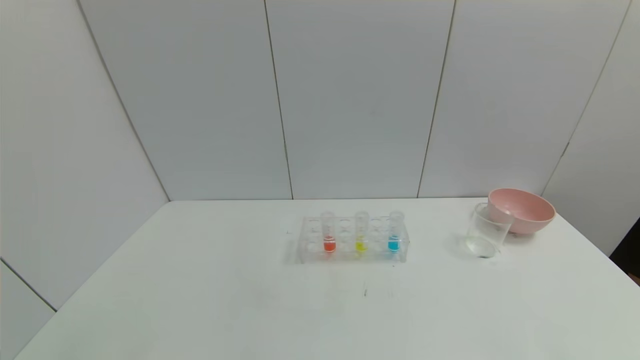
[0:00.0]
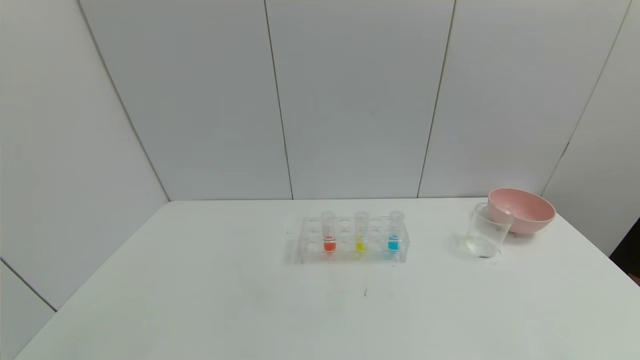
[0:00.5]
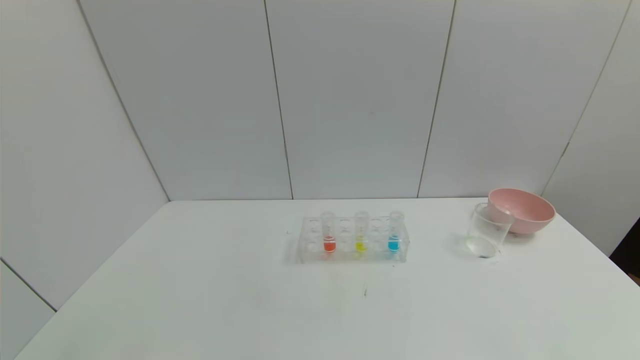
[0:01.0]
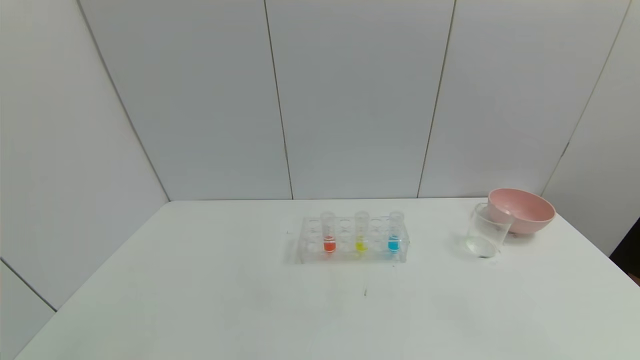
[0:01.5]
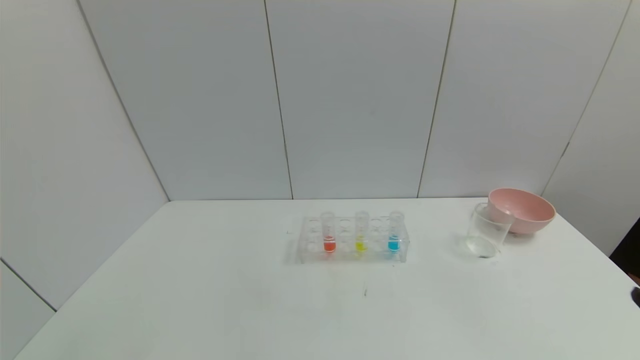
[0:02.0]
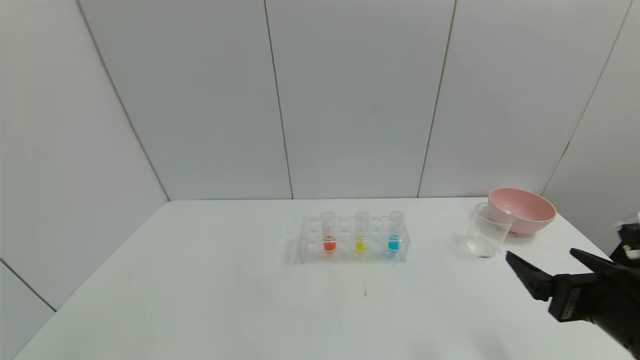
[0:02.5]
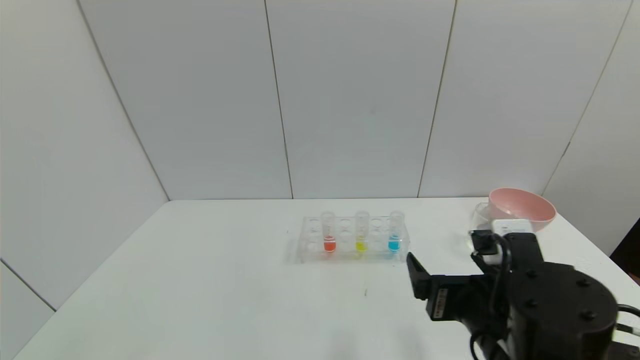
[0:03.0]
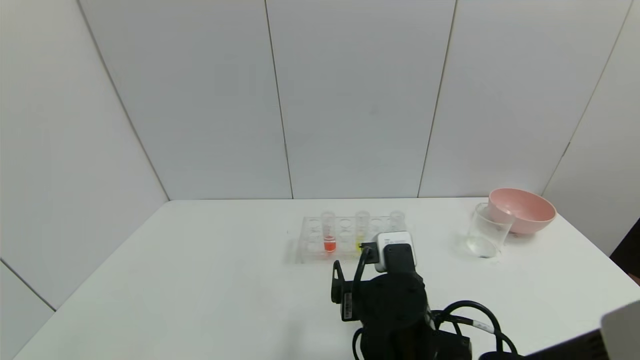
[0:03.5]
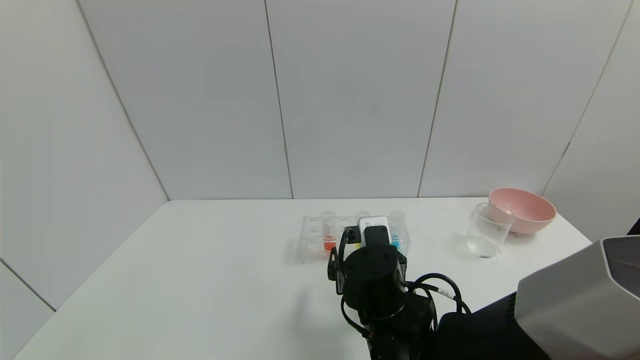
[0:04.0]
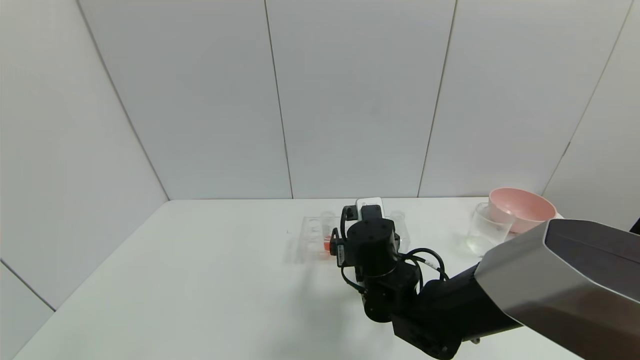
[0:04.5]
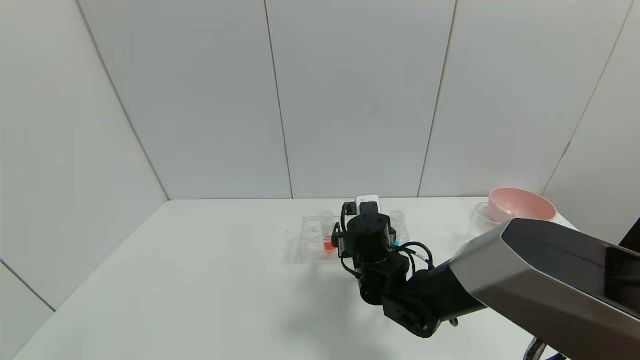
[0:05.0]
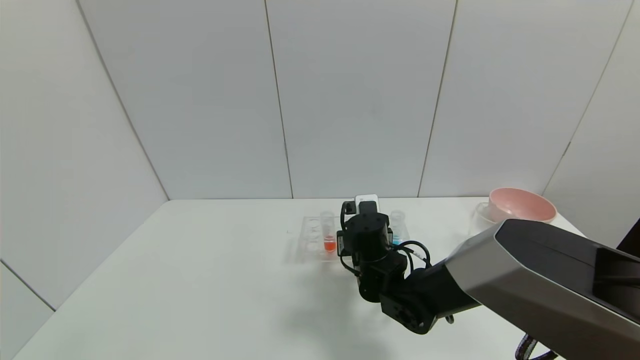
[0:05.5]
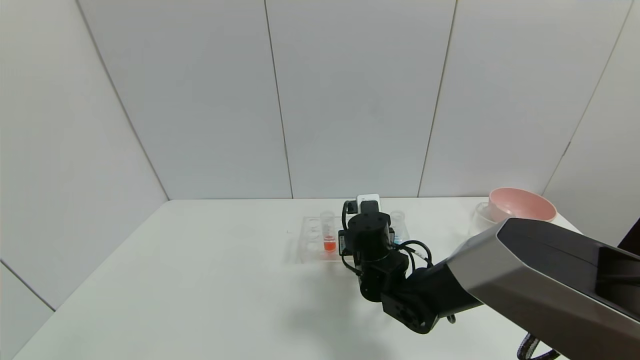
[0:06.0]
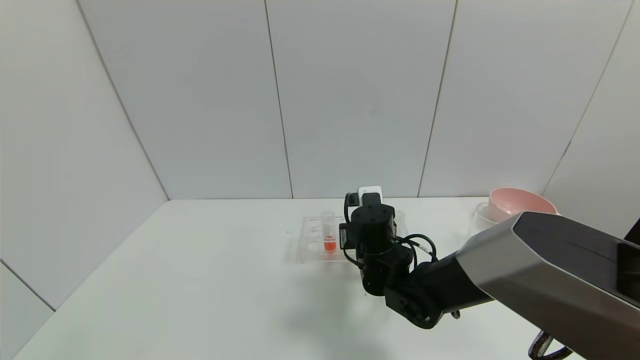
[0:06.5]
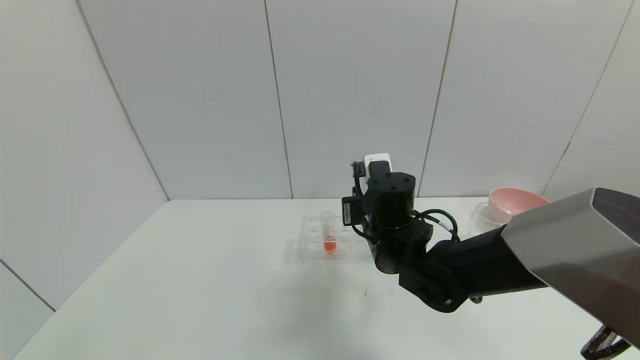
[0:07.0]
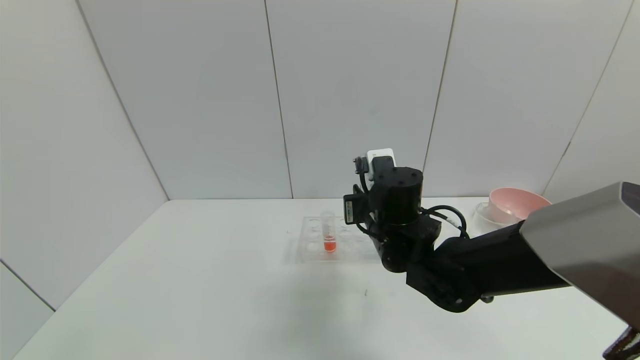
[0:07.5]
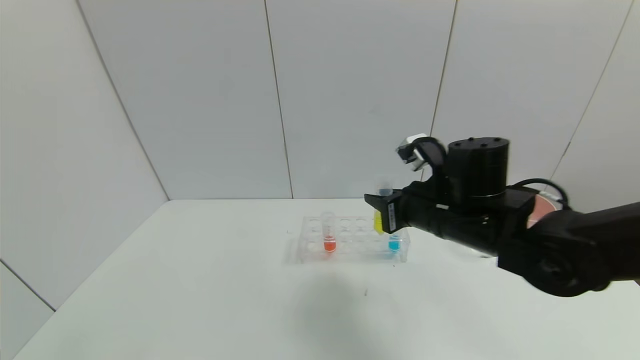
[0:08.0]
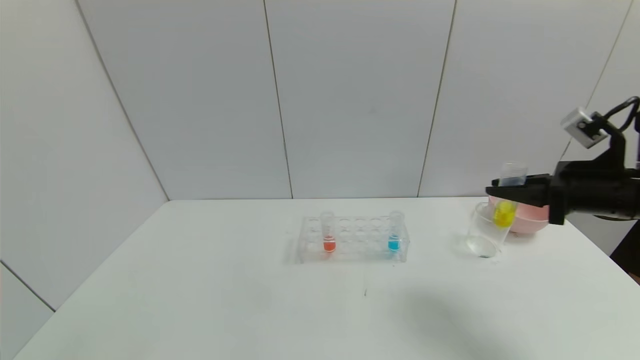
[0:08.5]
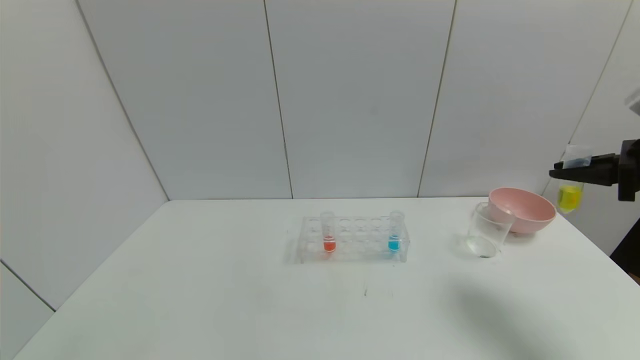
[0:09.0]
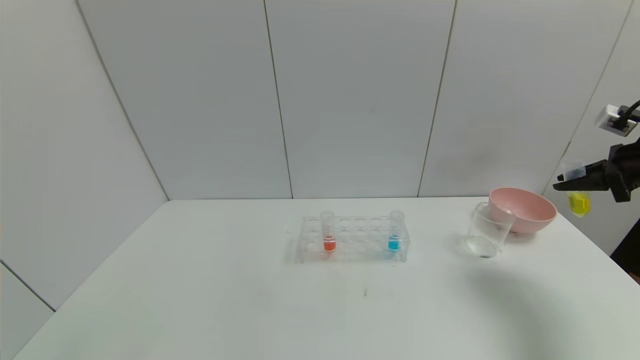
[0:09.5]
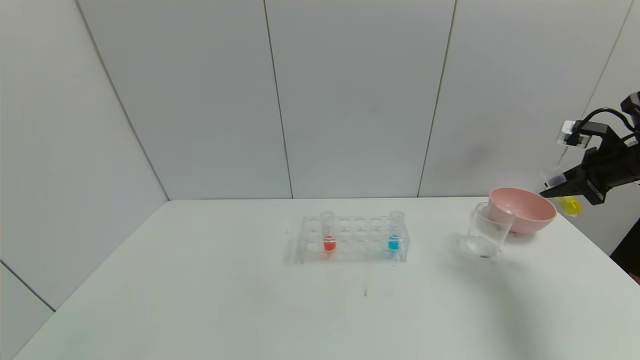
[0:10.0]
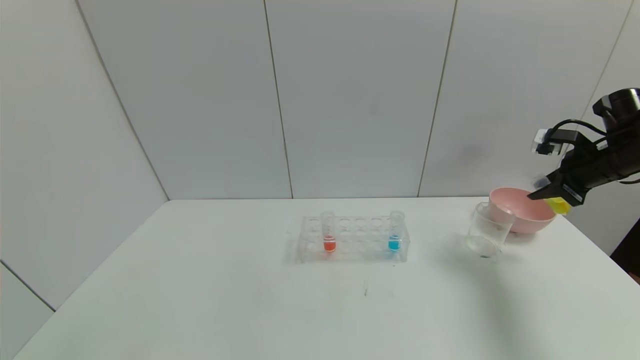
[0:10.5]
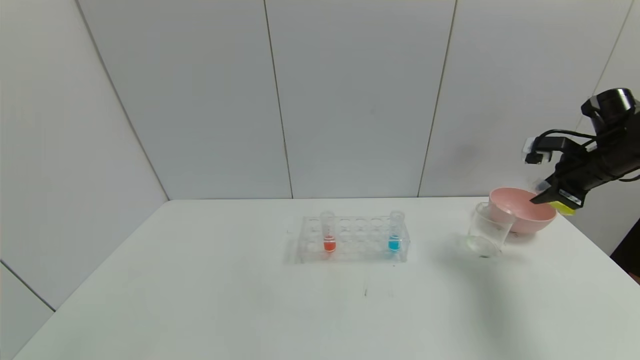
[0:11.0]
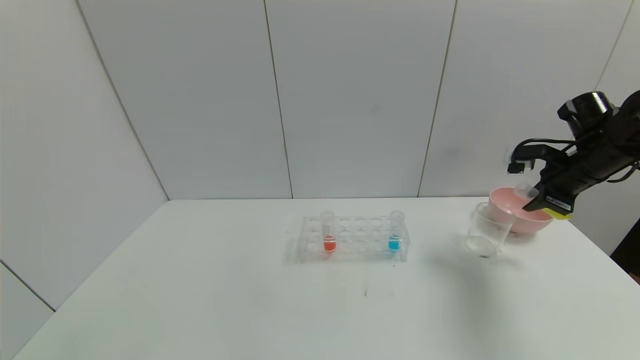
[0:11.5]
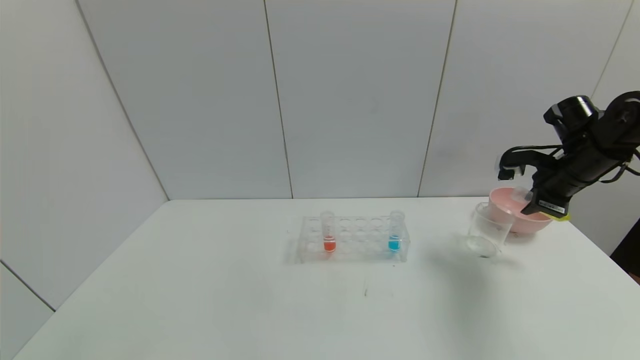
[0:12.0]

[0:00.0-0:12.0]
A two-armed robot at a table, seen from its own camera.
Task of the whole recording: pick up the test tube with yellow pigment and the test tube with blue pigment by grippers and pour them into the beaker.
Step, 0:00.0 to 0:08.0: Pick up the test tube containing the yellow reagent with right gripper.
0:02.0 to 0:04.0: The right gripper shifts approximately 35 cm to the left and forward.
0:04.0 to 0:06.0: The right gripper travels forward by roughly 10 cm, and closes.
0:06.0 to 0:08.0: The right gripper travels upward and to the right by some 15 cm.
0:08.0 to 0:10.0: The right gripper shifts some 30 cm to the right.
0:10.0 to 0:12.0: The right gripper shifts about 10 cm to the left.

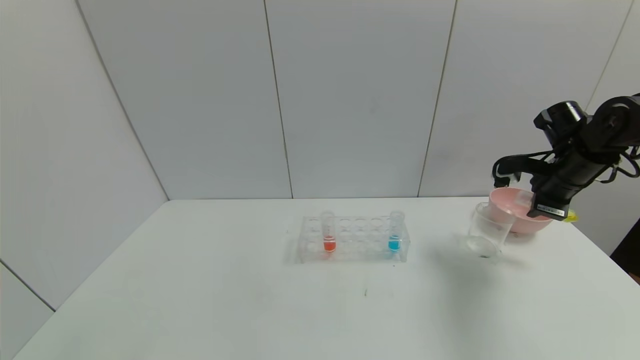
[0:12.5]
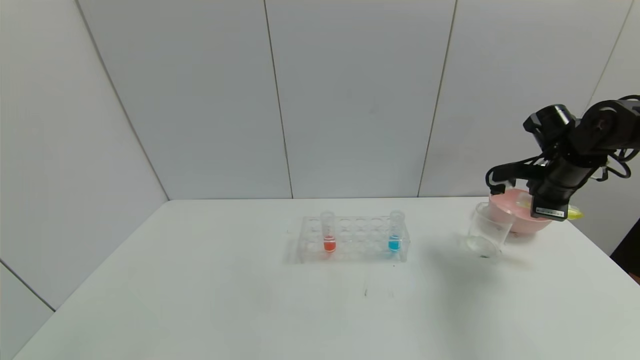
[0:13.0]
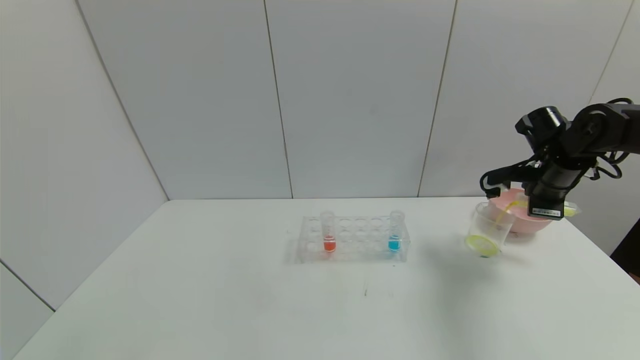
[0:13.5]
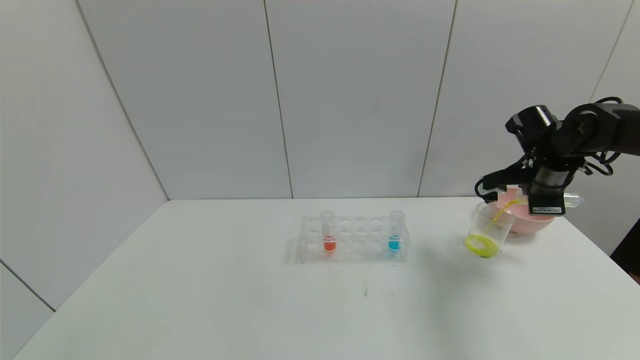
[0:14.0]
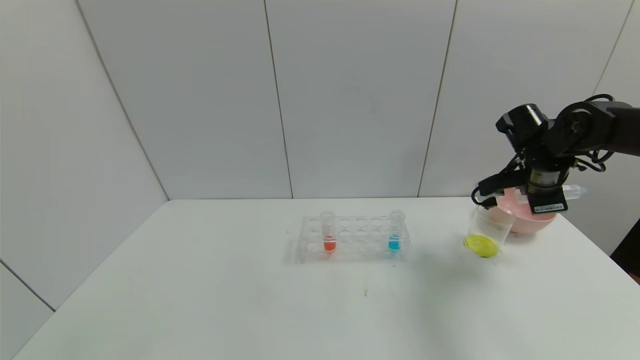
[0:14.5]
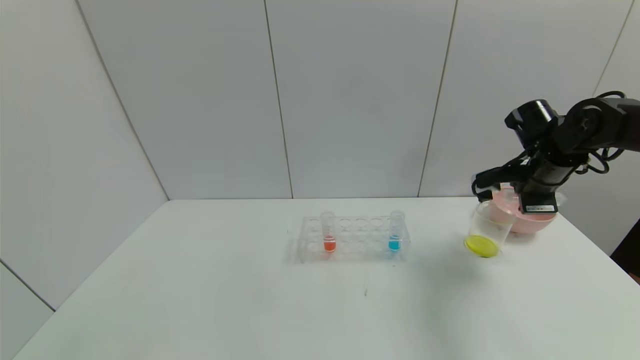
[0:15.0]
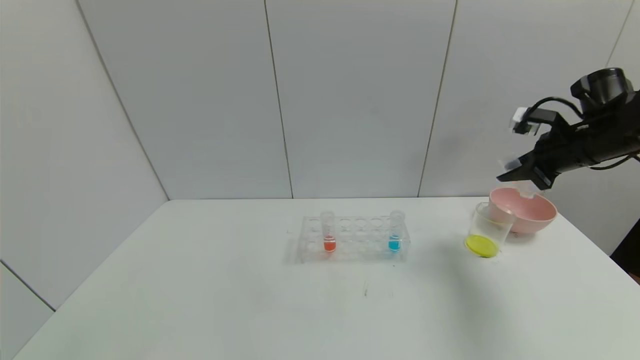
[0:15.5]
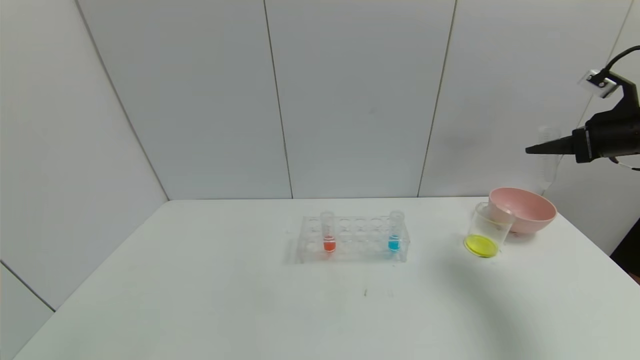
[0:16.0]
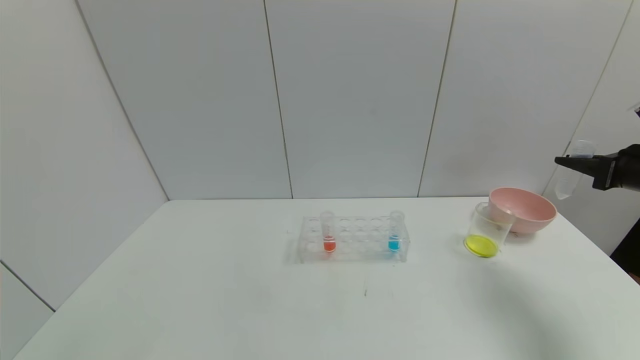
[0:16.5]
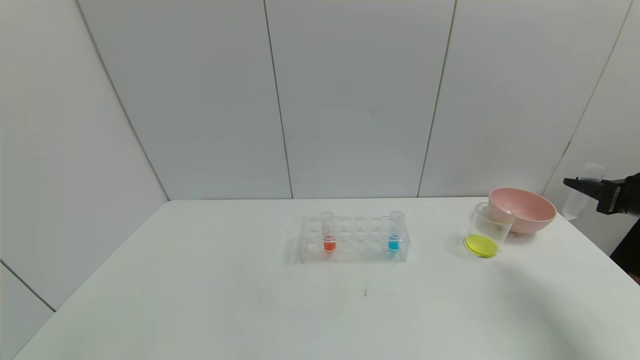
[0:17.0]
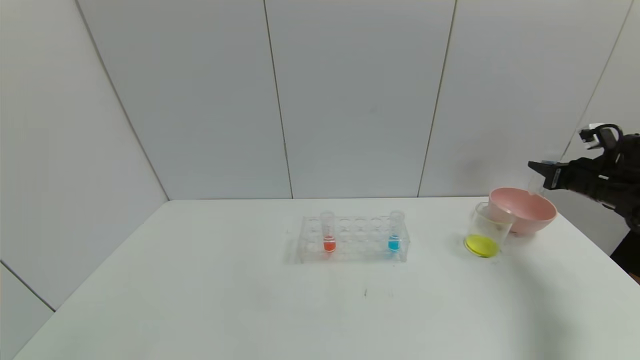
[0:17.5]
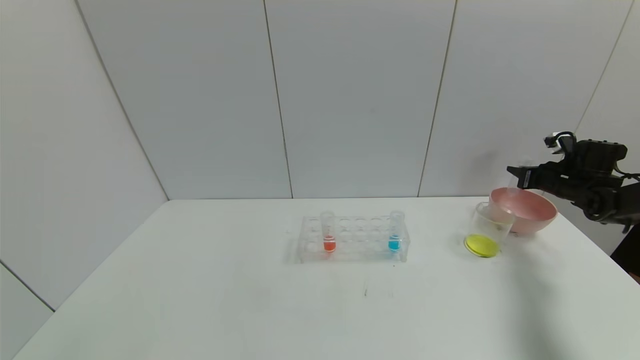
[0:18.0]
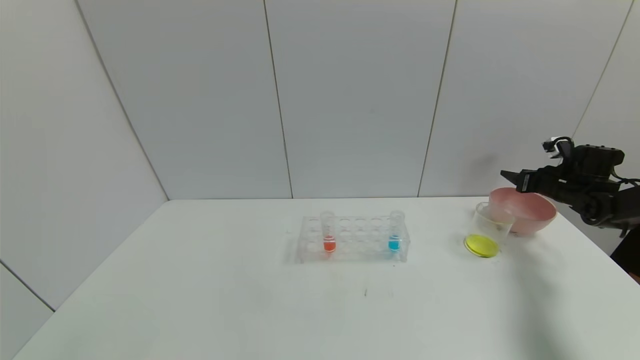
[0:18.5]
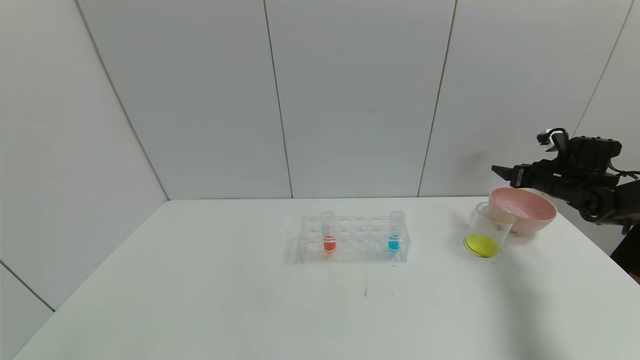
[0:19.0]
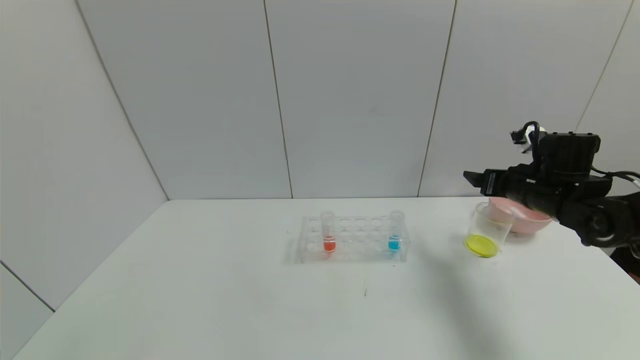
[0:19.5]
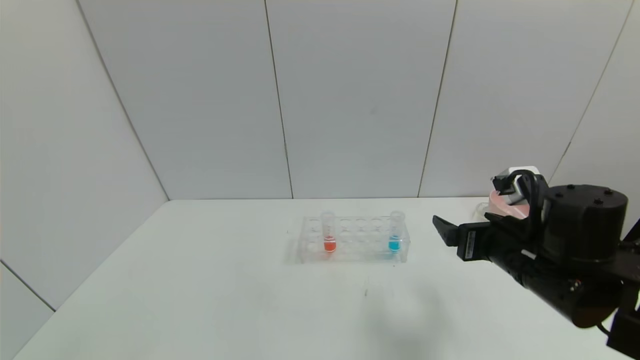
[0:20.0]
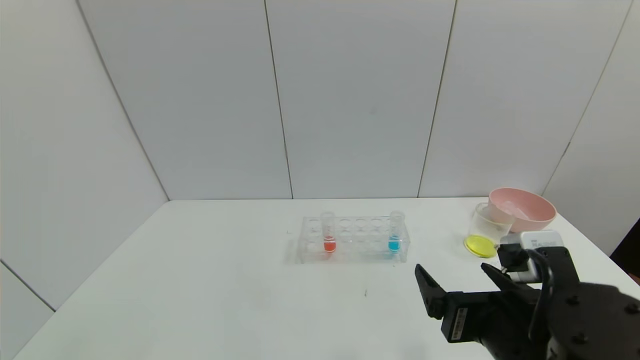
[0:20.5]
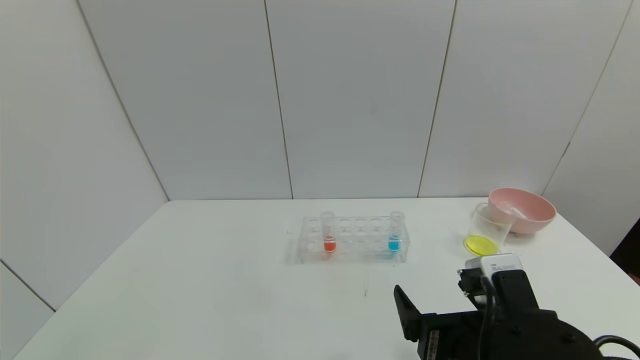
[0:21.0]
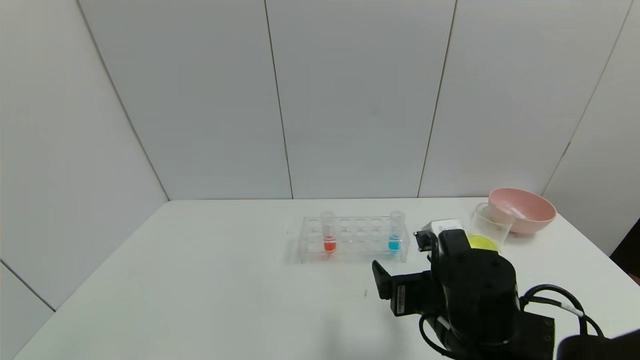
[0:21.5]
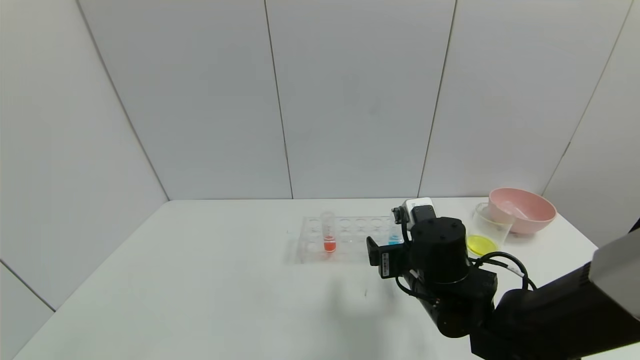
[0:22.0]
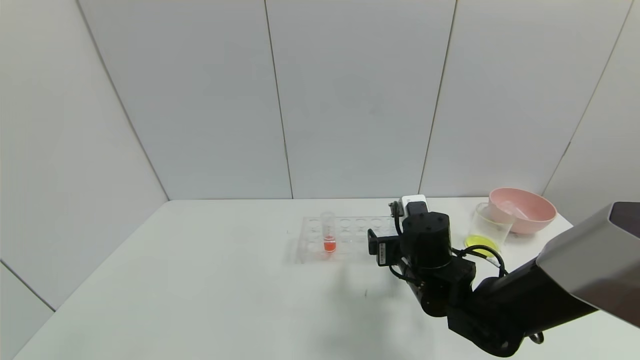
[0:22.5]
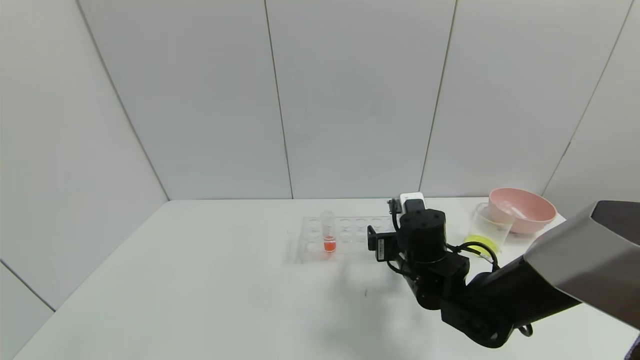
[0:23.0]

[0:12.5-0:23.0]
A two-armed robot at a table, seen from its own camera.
Task of the whole recording: pick up the test tube with yellow pigment and the test tube with blue pigment by grippers and pour them into the beaker.
Step, 0:12.5 to 0:16.0: Pour the yellow reagent into the graduated cylinder with right gripper.
Step, 0:16.5 to 0:19.0: Place the test tube into the bowl with right gripper.
0:14.5 to 0:16.5: The right gripper is displaced to the right and backward by roughly 15 cm.
0:16.5 to 0:19.0: The right gripper shifts approximately 15 cm forward and downward, and opens.
0:19.0 to 0:21.0: The right gripper shifts roughly 40 cm backward and to the left.
0:21.0 to 0:23.0: The right gripper goes approximately 20 cm forward.
